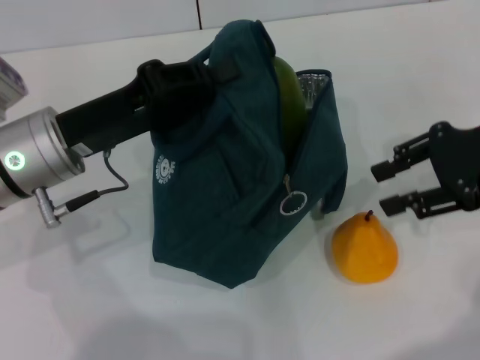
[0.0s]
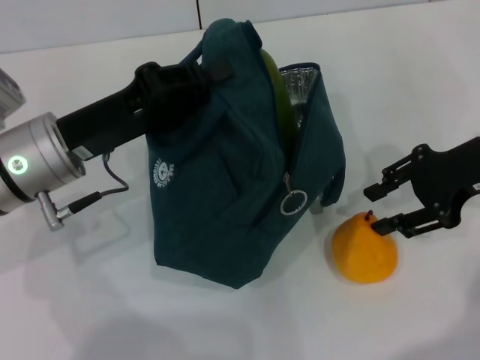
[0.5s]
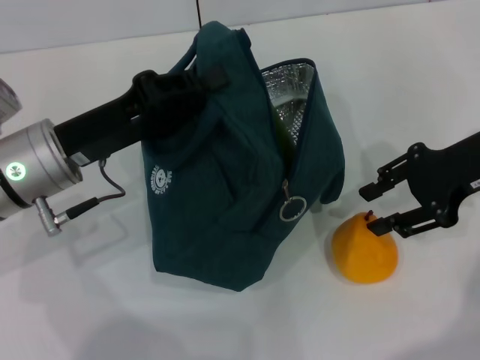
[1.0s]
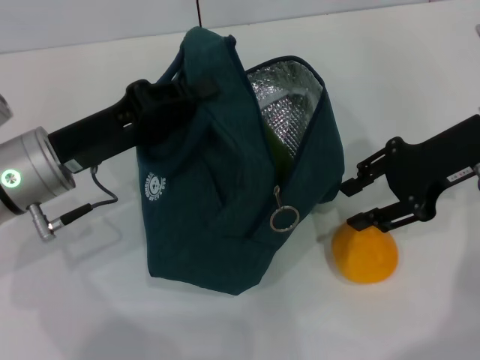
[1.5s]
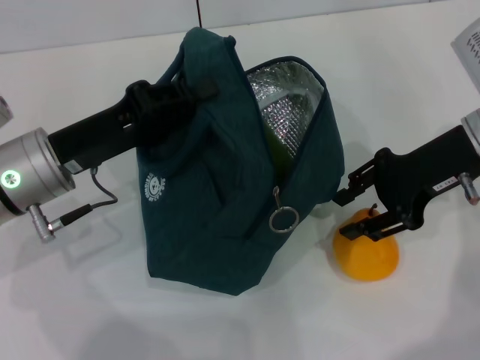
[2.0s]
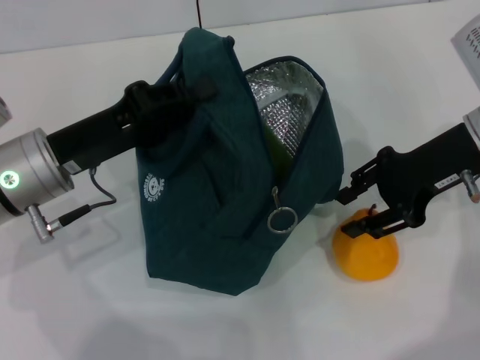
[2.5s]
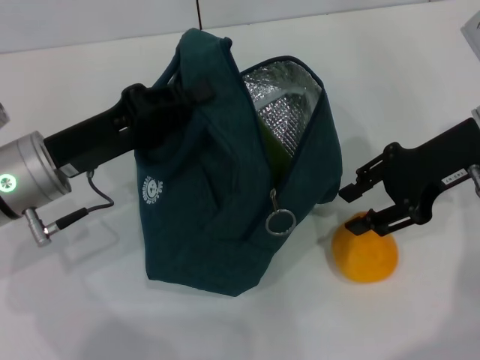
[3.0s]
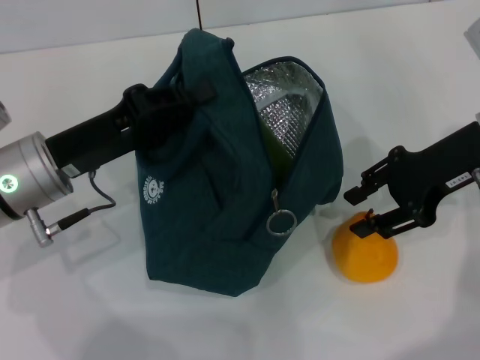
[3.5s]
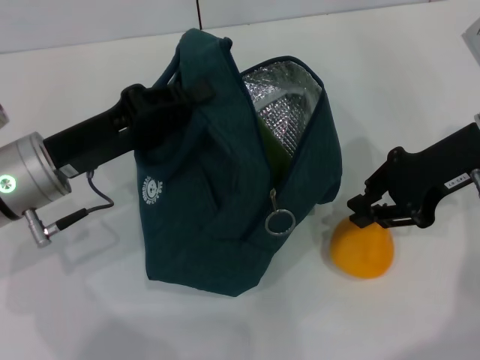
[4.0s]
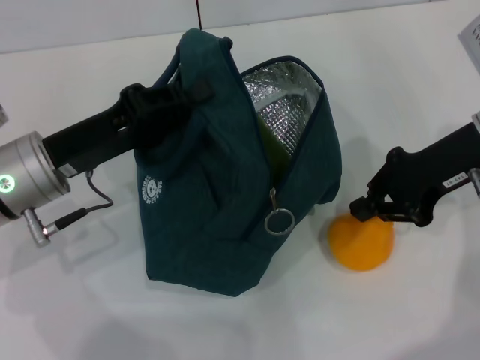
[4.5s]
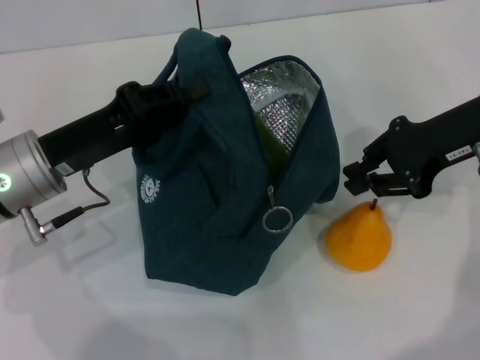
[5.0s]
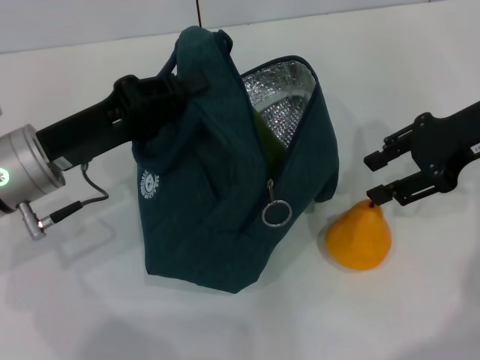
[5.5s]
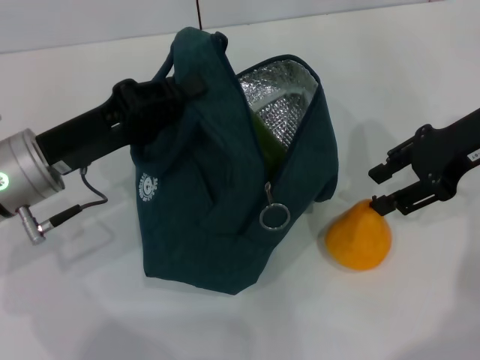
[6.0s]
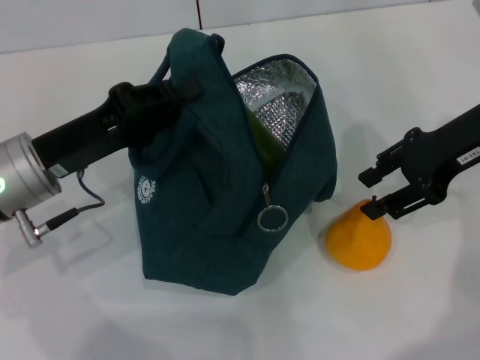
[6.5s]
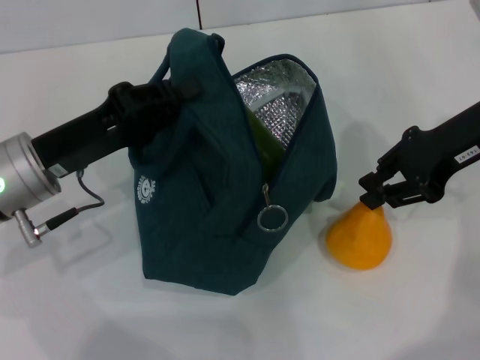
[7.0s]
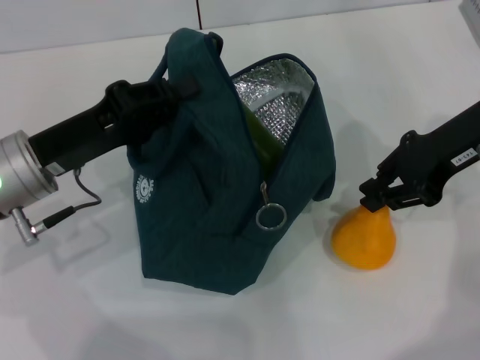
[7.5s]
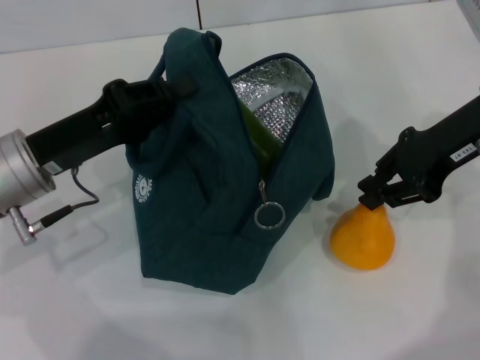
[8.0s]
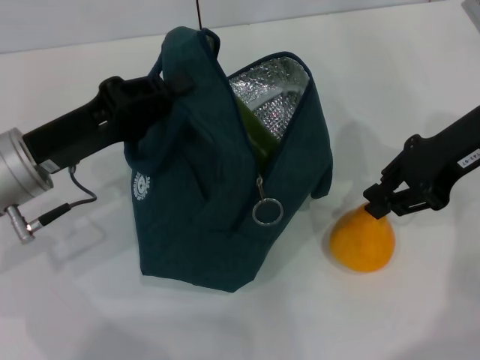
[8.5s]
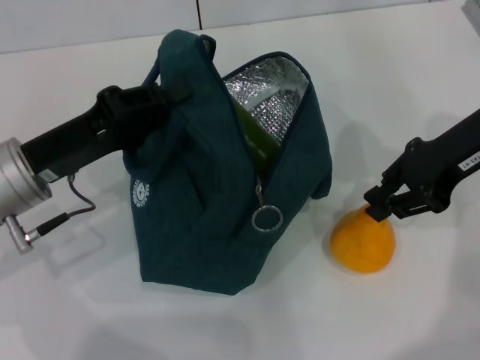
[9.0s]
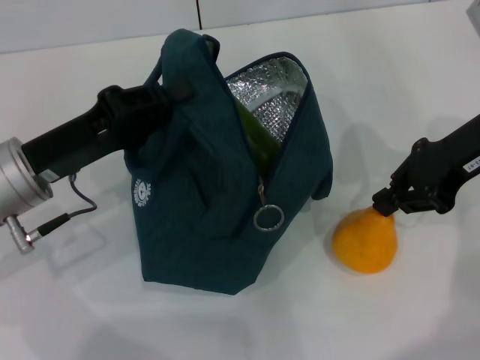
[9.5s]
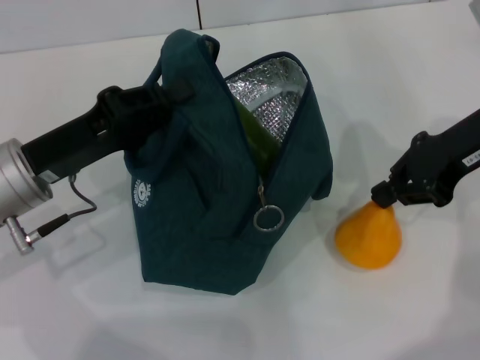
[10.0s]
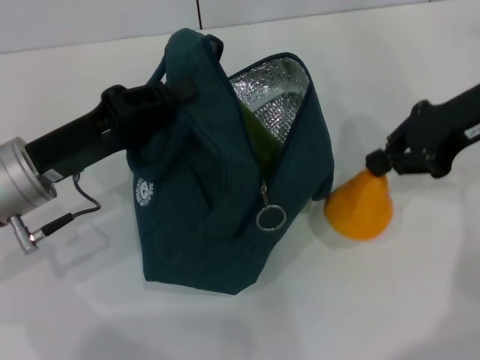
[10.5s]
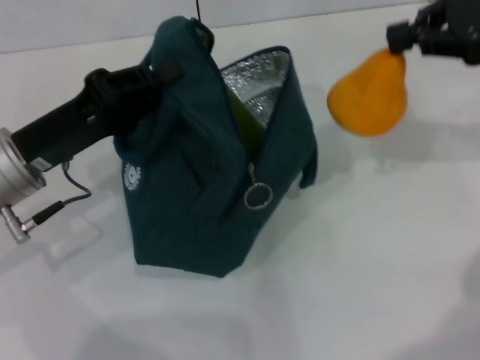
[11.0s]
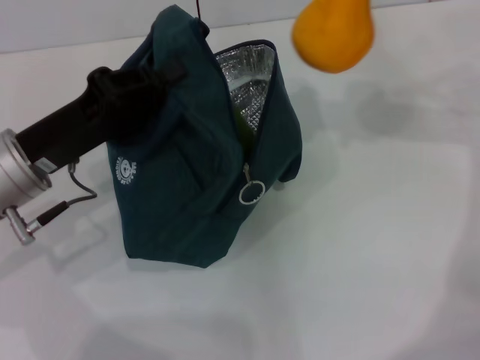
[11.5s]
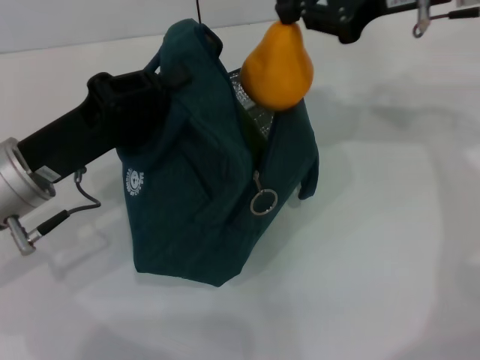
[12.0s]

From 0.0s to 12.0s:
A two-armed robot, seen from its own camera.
Step, from 0.0s to 9.5s: Grab the pear with your right hand.
From 0.0s to 2.0s: The right gripper shifts some 5 cm to the left.
From 2.0s to 4.0s: There are only small adjustments of the grippers.
From 4.0s to 6.0s: The right gripper closes, then reopens.
From 6.0s to 8.0s: The right gripper closes its fingers.
From 8.0s to 10.0s: The two grippers keep their place.
From 10.0s to 12.0s: The right gripper shifts some 10 cm upward and forward.

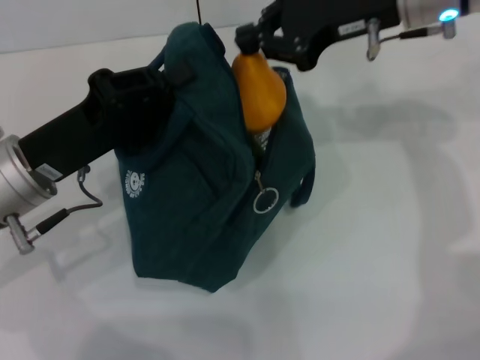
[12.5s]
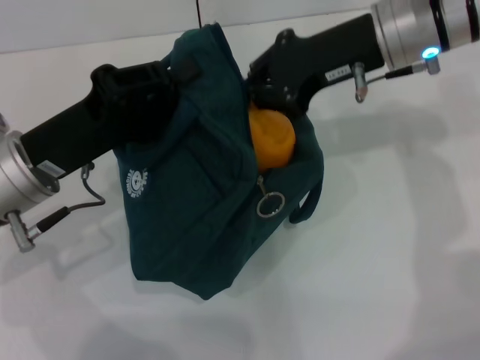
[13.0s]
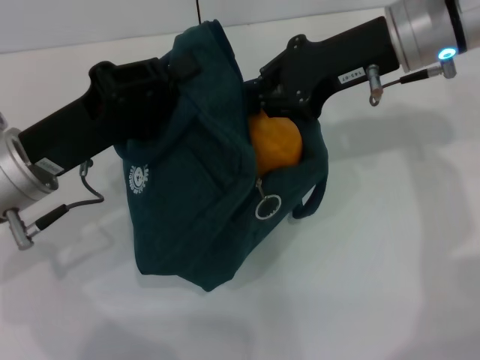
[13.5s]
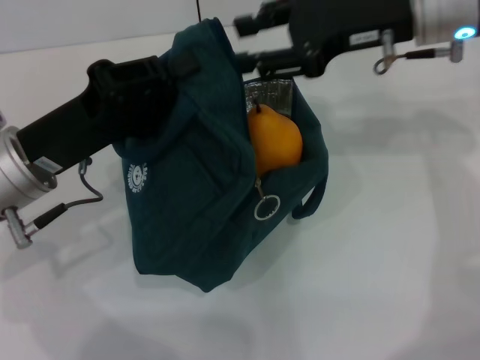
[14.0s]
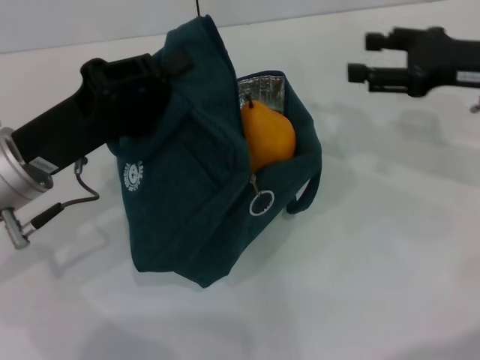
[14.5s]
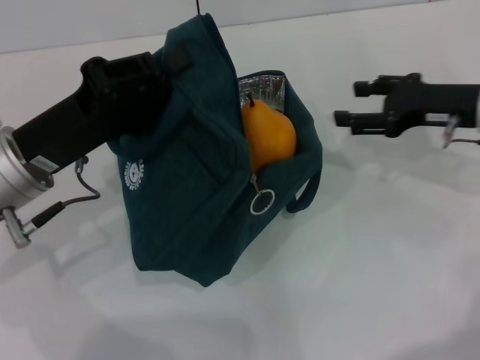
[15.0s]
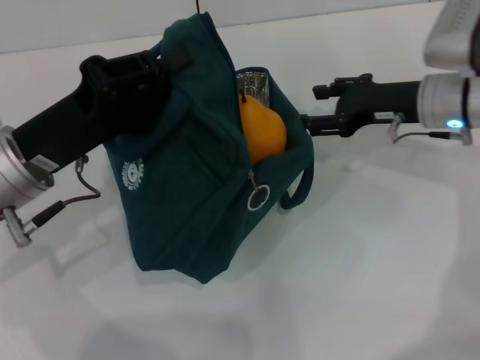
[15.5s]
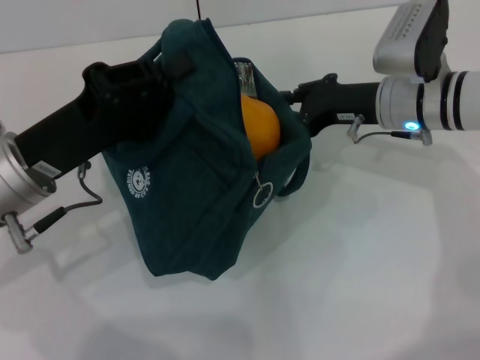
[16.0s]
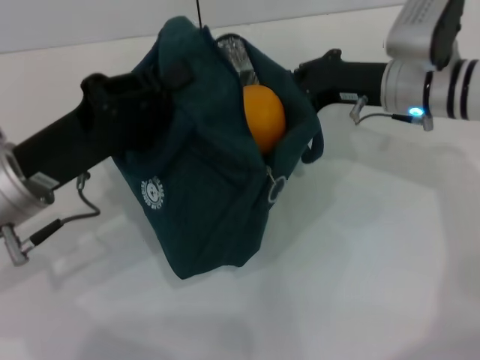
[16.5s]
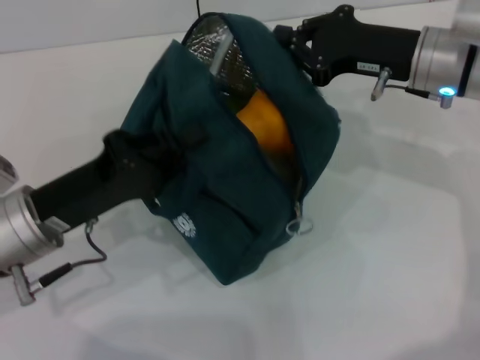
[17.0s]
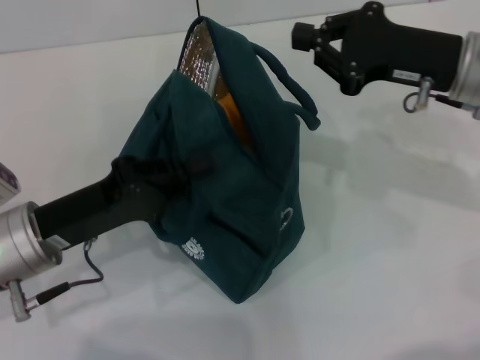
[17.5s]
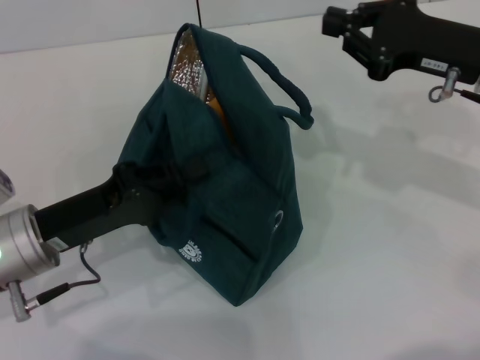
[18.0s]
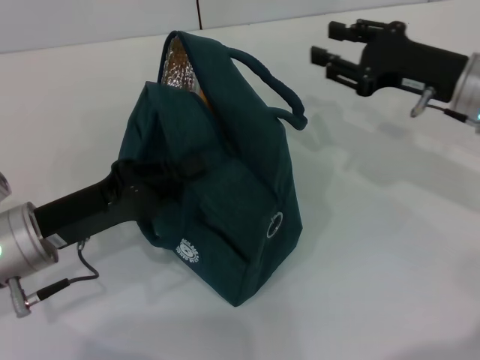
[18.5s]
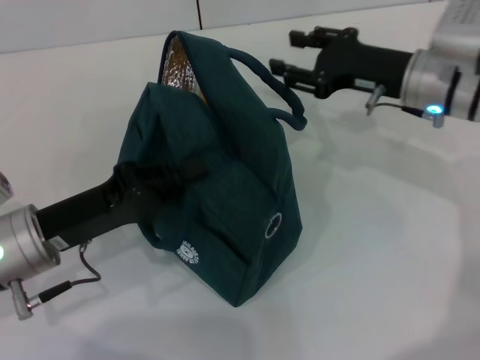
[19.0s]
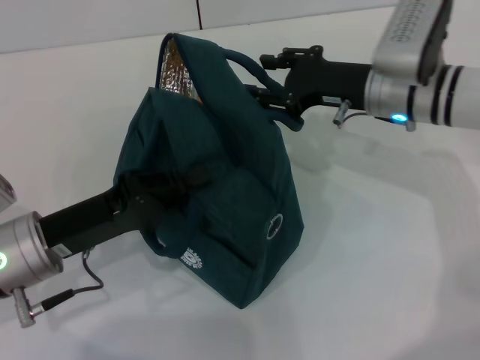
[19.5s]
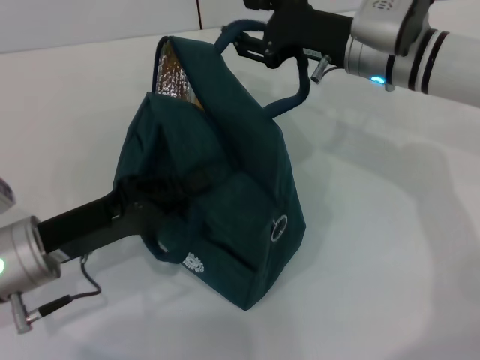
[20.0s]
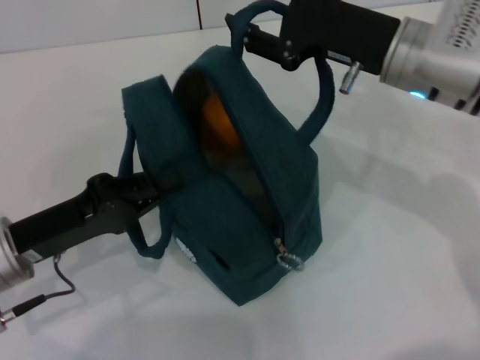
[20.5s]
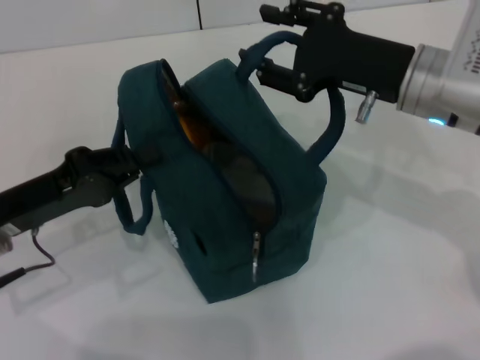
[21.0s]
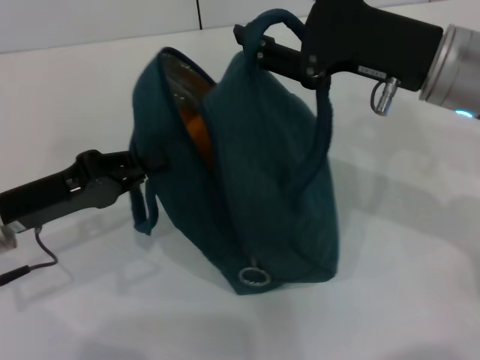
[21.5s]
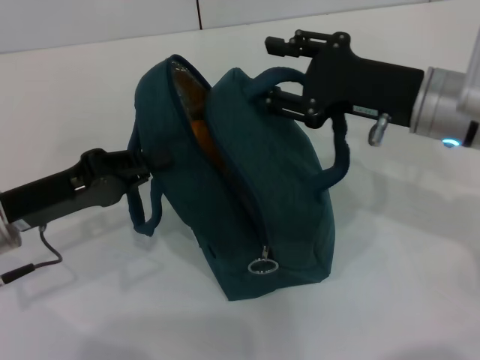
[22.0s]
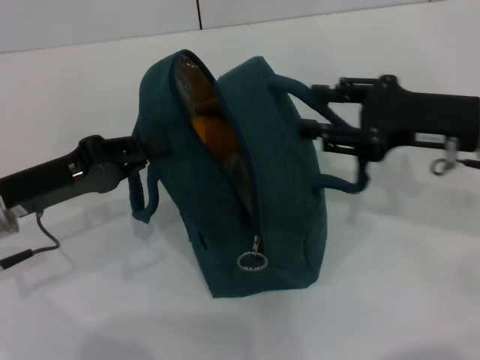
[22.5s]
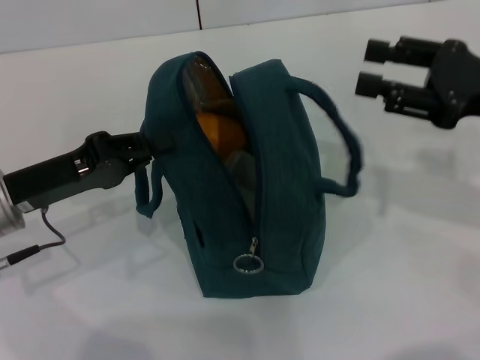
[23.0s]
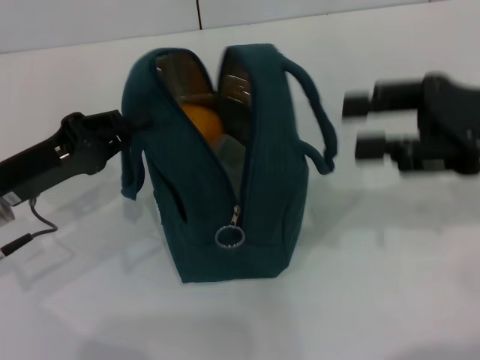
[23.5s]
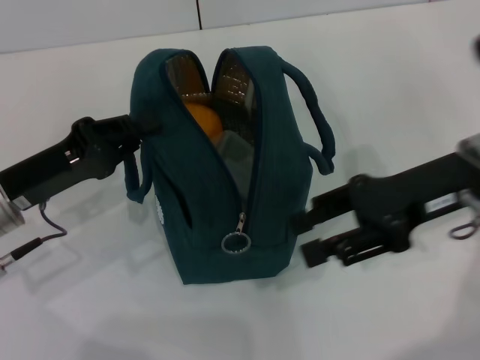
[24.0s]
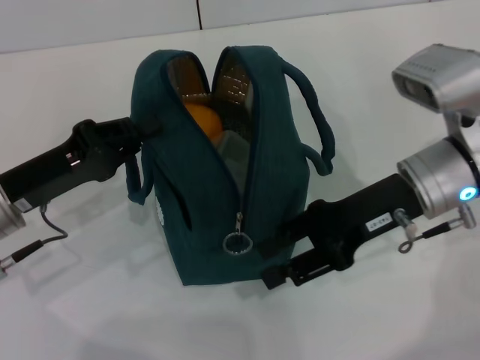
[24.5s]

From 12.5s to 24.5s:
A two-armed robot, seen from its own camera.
Step, from 15.0s to 18.0s: Hold the lunch bag with your right hand.
From 12.5s to 14.5s: The right gripper is displaced to the right, downward and backward by approximately 15 cm, and opens.
From 14.5s to 16.5s: The right gripper moves to the left and forward, approximately 10 cm, and closes.
From 16.5s to 18.5s: The right gripper is displaced to the right by about 5 cm.
From 18.5s to 20.5s: The right gripper moves to the left, approximately 10 cm, and opens up.
From 20.5s to 22.5s: The right gripper heads to the right and backward, covering about 10 cm.
From 22.5s to 24.5s: The right gripper travels to the left by approximately 5 cm.

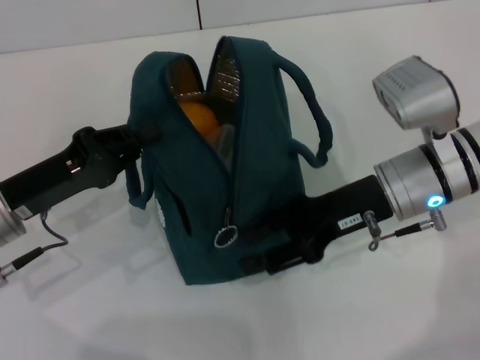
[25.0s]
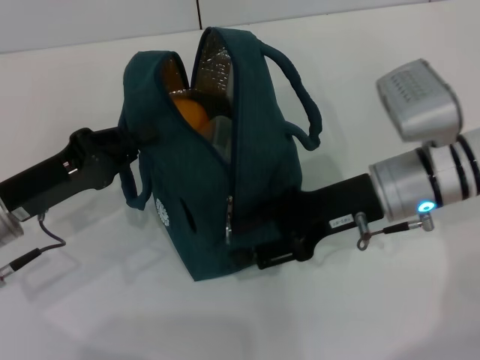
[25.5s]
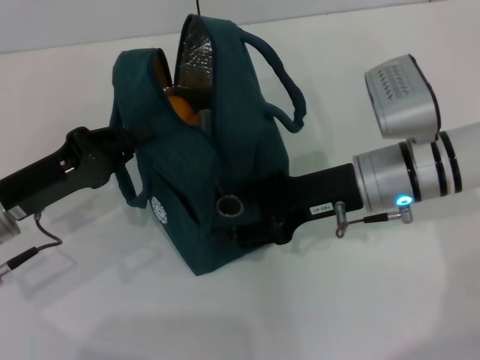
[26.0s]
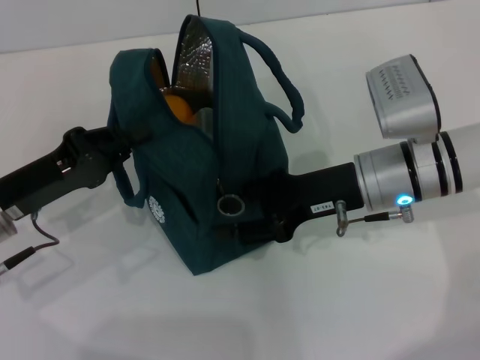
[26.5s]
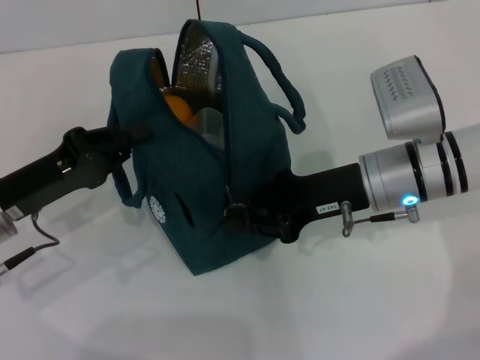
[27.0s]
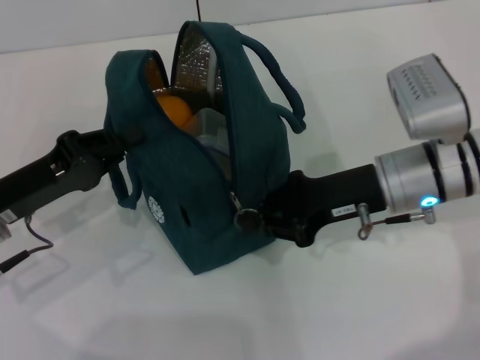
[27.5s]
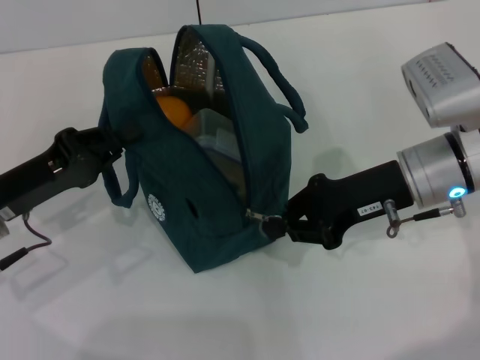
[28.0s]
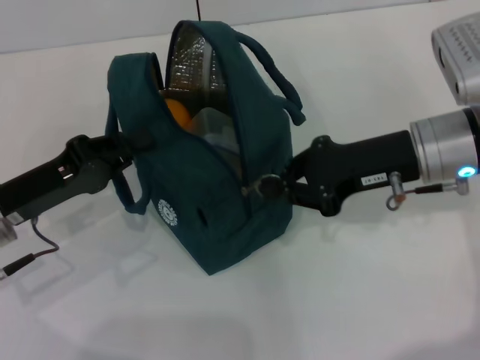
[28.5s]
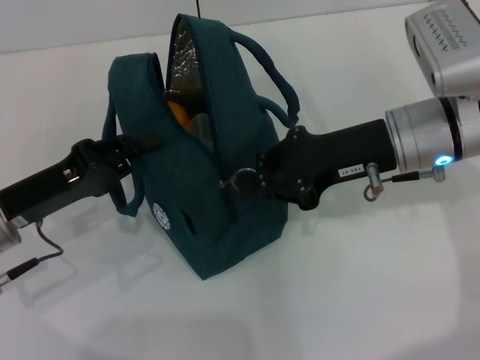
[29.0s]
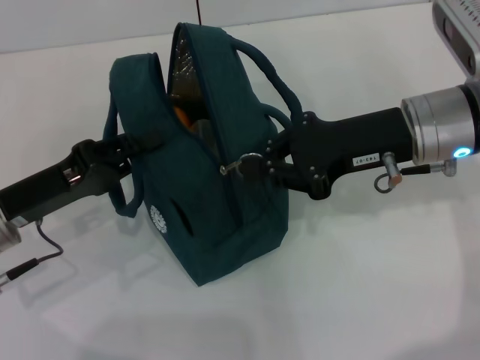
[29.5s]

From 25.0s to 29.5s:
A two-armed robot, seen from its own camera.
From 25.0s to 27.0s: The right gripper closes its fingers.
From 27.0s to 29.5s: The right gripper shifts approximately 5 cm upward.
